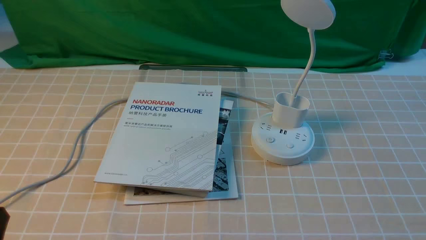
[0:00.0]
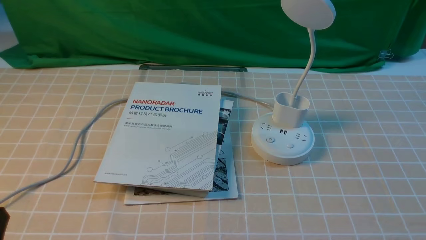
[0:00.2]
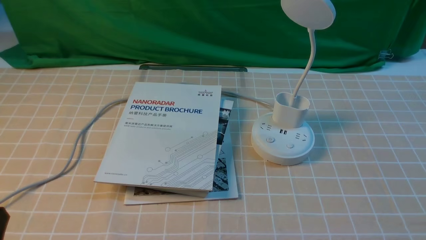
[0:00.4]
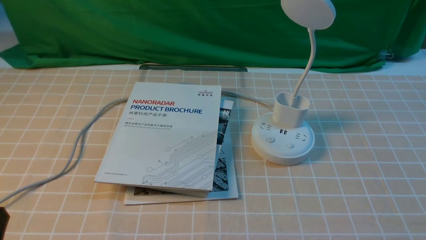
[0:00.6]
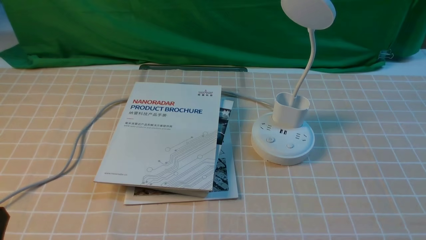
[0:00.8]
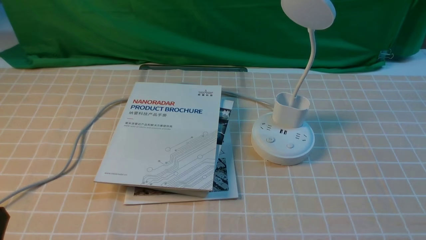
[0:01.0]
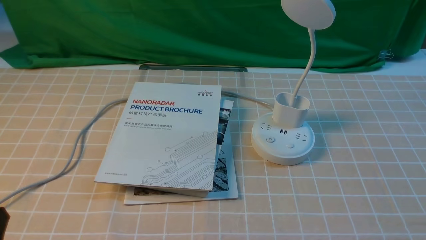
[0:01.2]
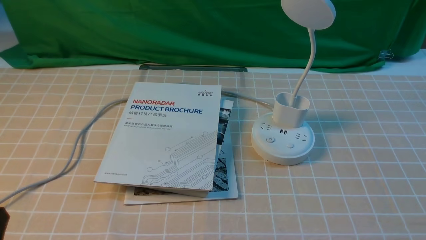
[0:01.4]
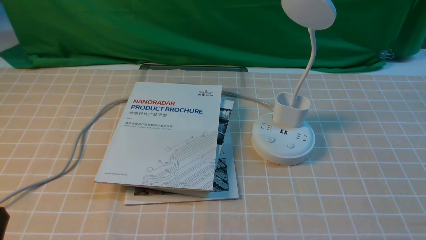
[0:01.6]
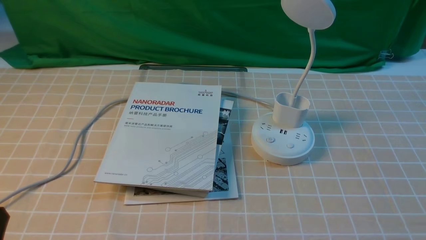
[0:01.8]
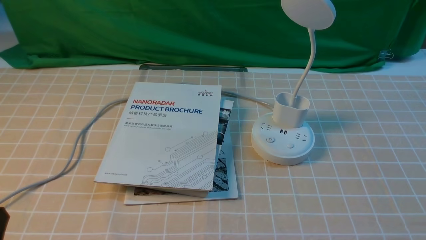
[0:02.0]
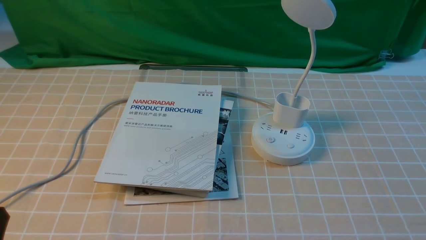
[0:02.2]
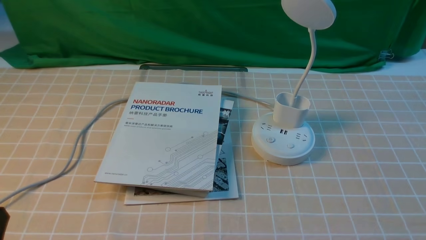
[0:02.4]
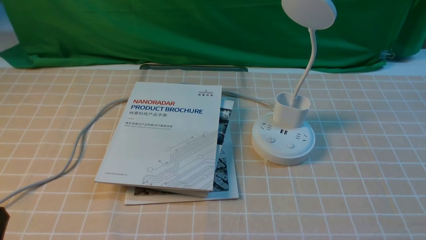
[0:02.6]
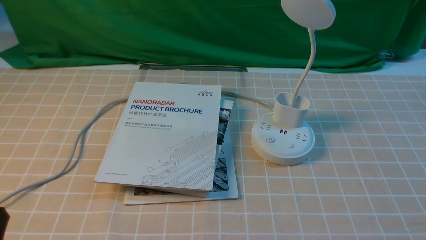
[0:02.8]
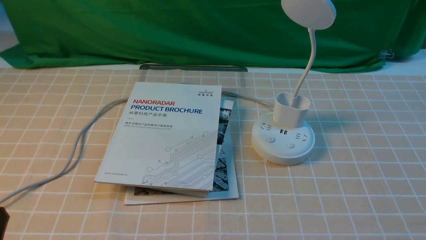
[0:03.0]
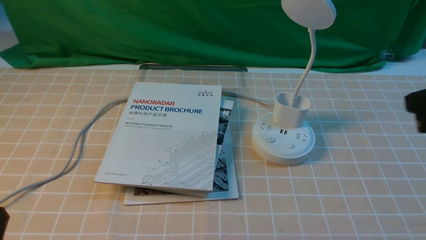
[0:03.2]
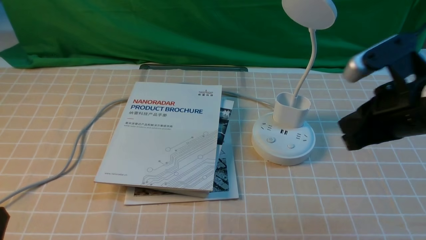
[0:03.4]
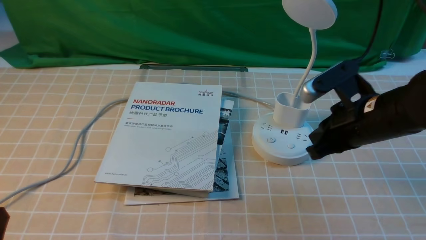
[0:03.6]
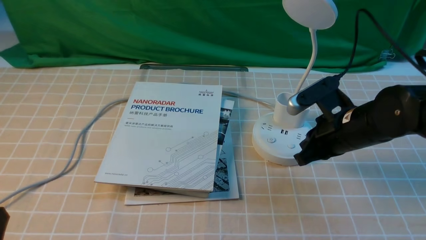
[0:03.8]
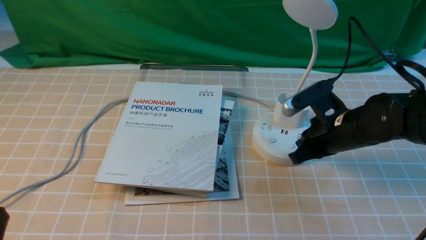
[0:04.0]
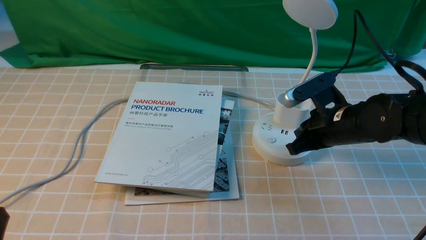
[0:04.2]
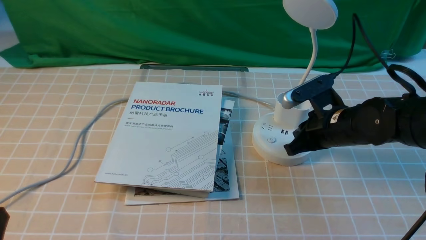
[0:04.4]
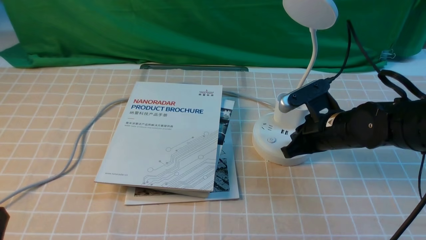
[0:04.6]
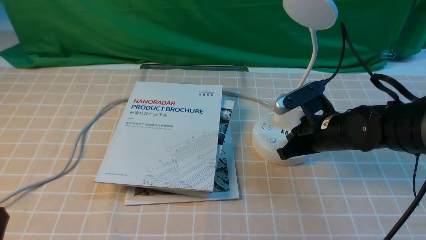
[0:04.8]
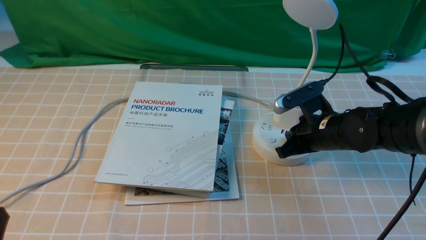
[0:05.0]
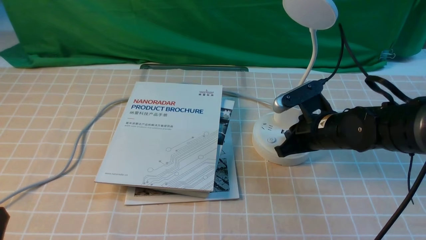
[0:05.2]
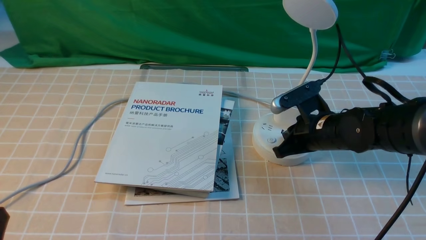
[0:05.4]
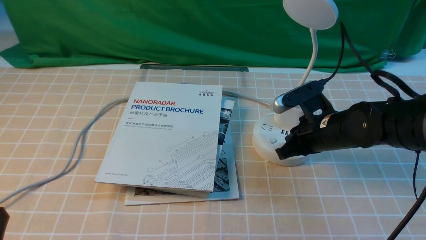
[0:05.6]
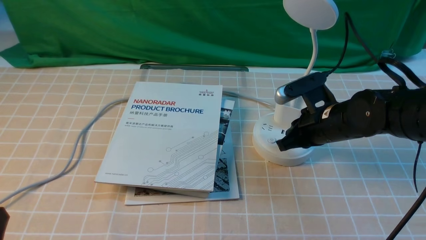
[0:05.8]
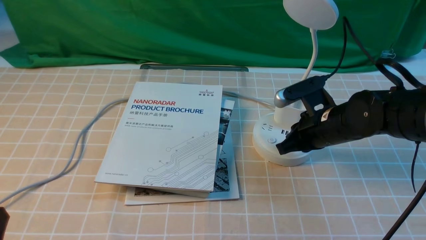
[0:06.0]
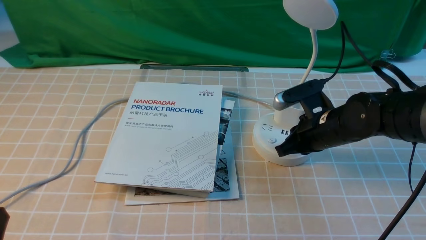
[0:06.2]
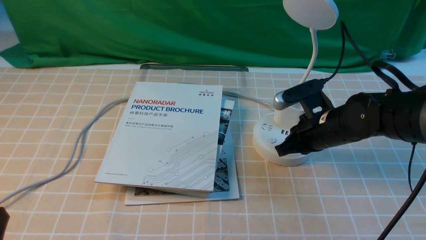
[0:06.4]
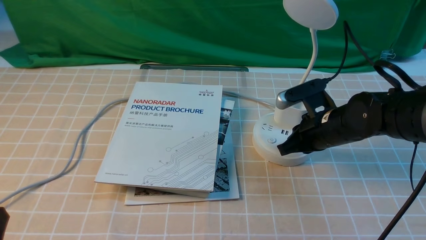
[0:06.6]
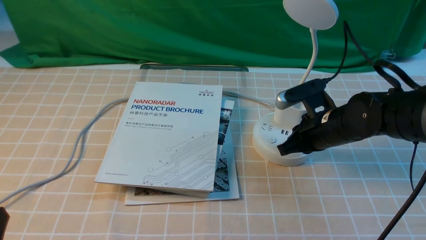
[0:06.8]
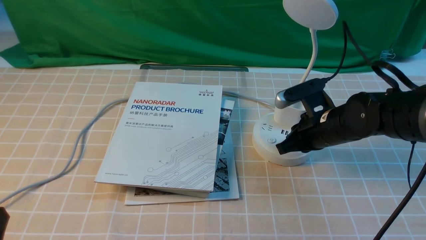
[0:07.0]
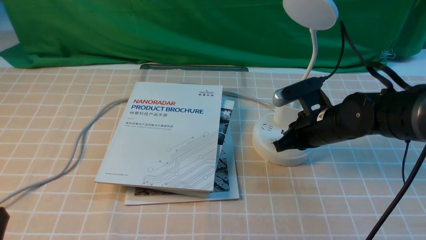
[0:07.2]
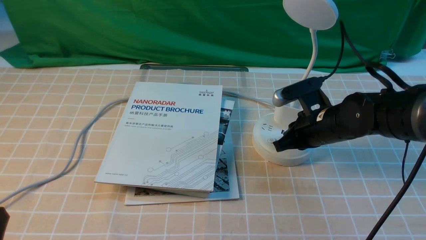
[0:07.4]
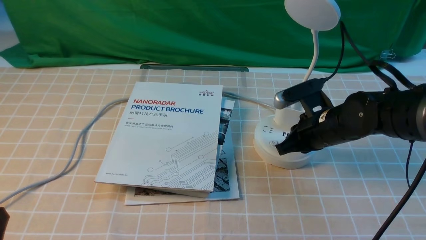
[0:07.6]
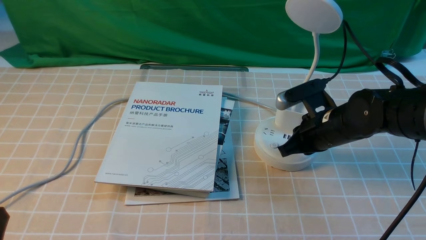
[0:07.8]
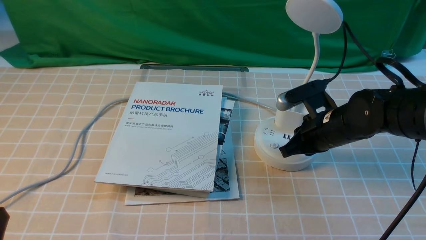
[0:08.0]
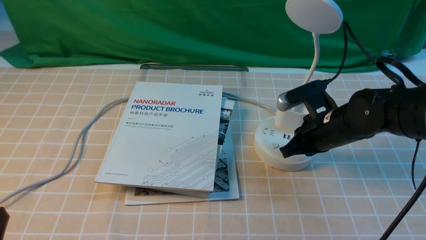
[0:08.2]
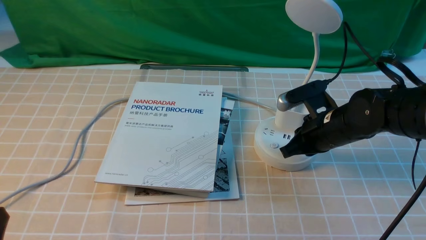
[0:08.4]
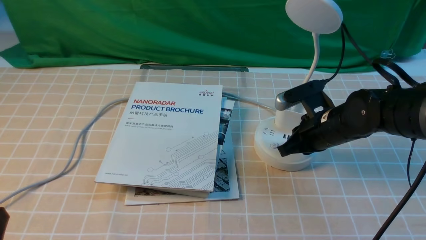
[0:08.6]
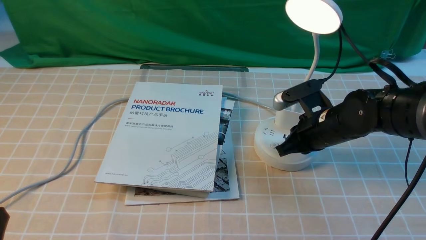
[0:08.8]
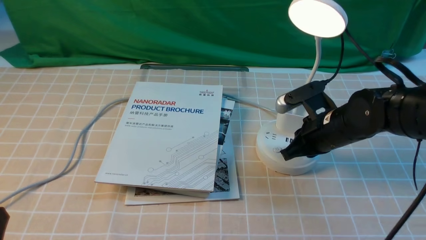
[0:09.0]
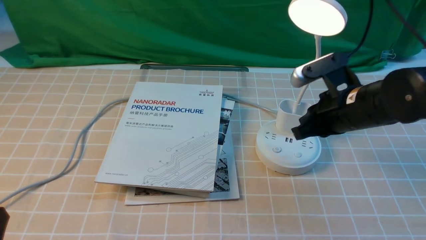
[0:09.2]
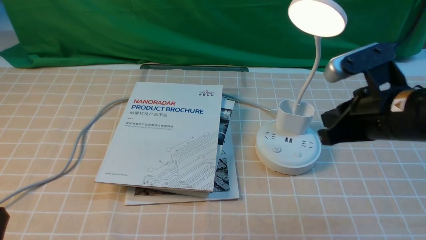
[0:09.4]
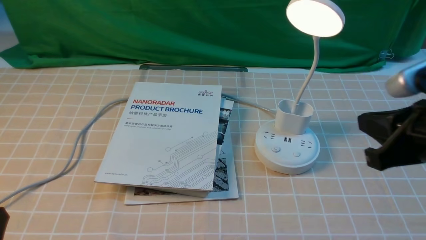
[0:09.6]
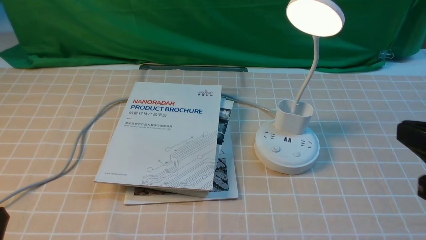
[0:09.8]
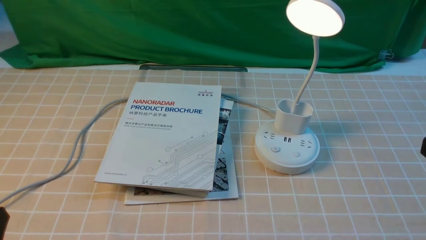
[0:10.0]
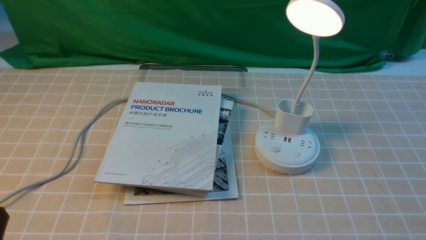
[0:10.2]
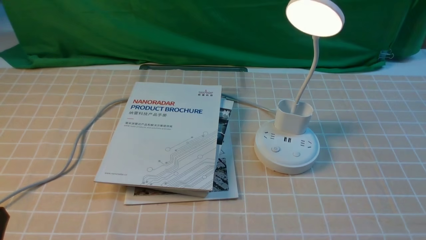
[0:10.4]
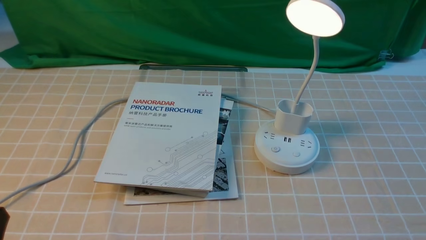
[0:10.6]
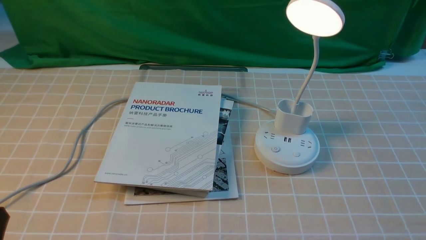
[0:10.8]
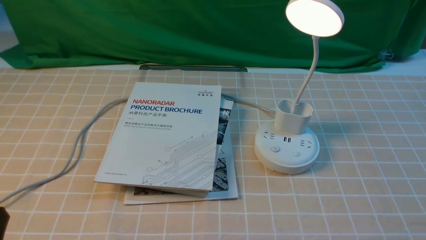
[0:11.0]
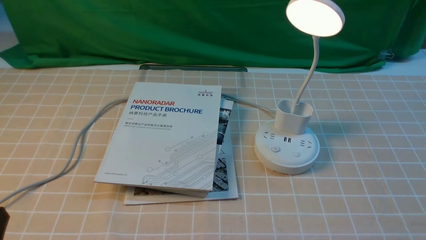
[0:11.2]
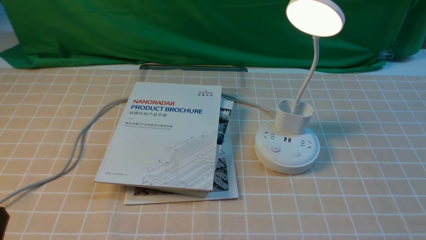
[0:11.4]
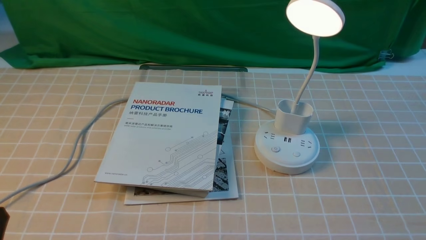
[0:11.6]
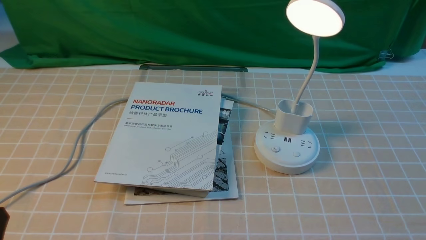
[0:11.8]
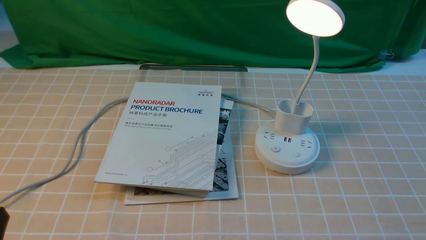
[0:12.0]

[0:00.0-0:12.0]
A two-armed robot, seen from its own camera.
Step, 0:00.0 to 0:09.2: use the right arm to press the button switch on the lamp holder.
0:03.0 to 0:04.4: The right gripper shifts roughly 30 cm forward, downward and to the left.
0:04.4 to 0:09.0: The grippers make only small movements.
0:09.0 to 0:10.4: The right gripper moves backward and to the right, approximately 30 cm.

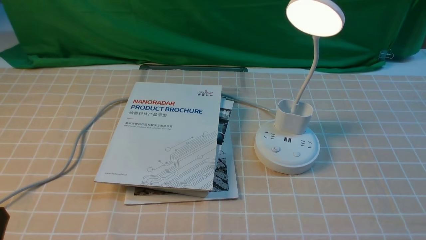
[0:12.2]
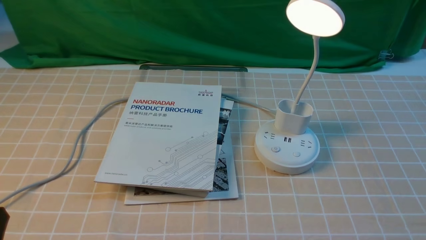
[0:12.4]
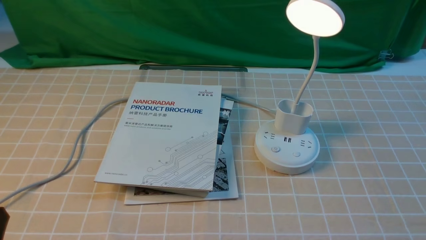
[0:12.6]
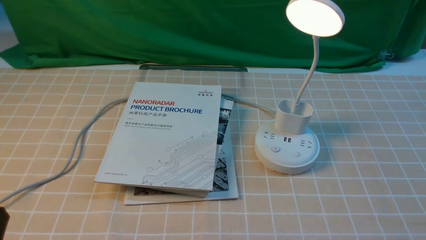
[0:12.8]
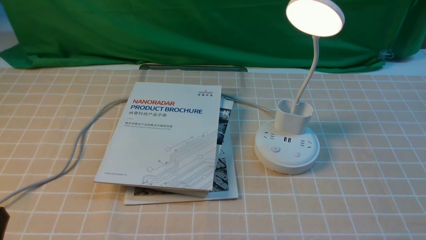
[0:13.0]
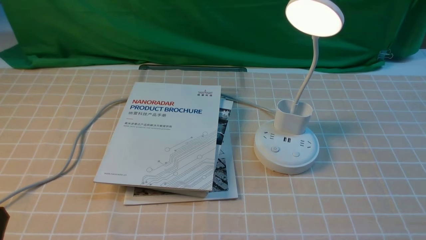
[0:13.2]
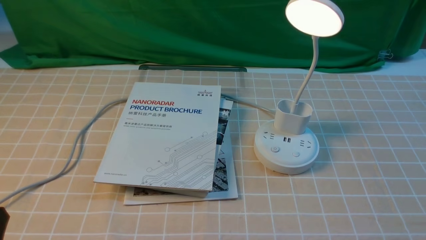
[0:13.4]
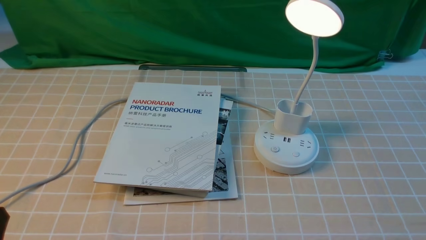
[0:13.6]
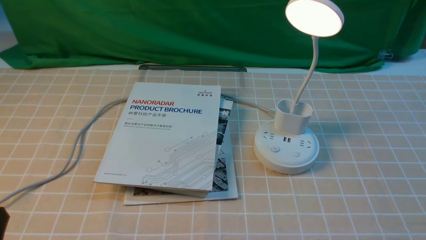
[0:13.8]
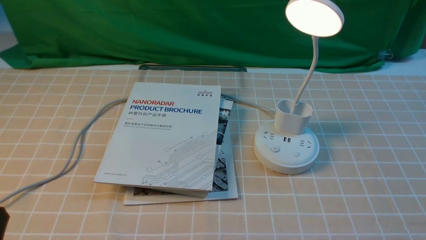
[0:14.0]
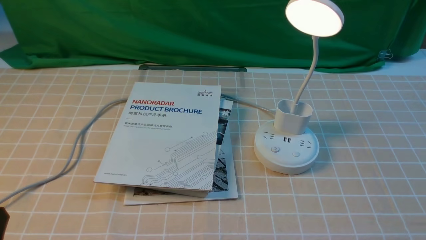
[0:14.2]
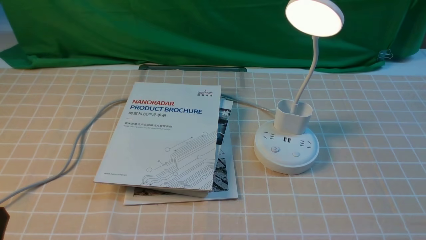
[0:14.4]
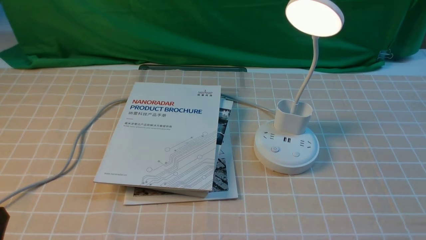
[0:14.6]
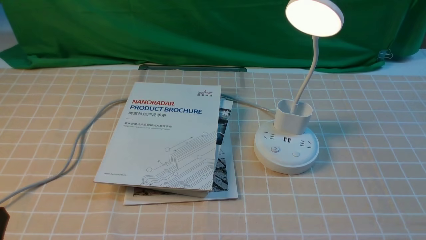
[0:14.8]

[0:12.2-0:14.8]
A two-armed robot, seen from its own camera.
0:12.2 to 0:14.8: Both grippers stay about where they are.
